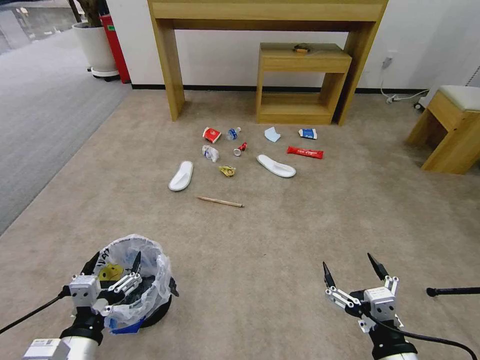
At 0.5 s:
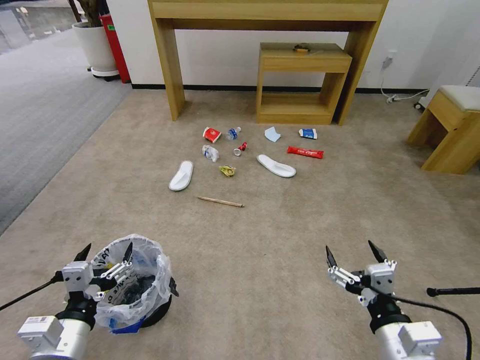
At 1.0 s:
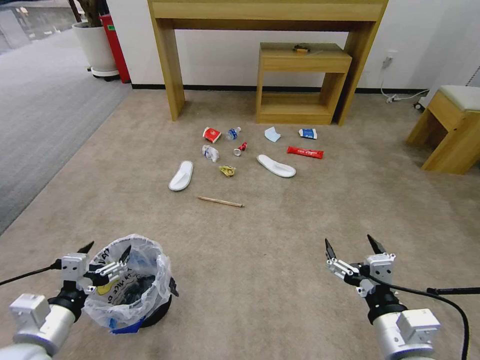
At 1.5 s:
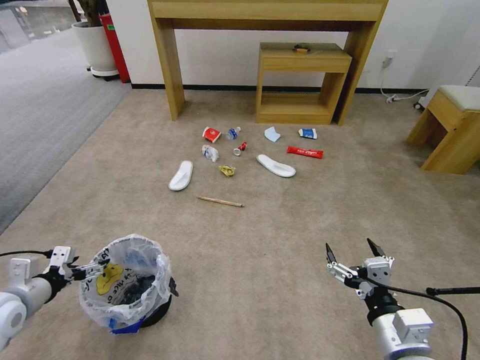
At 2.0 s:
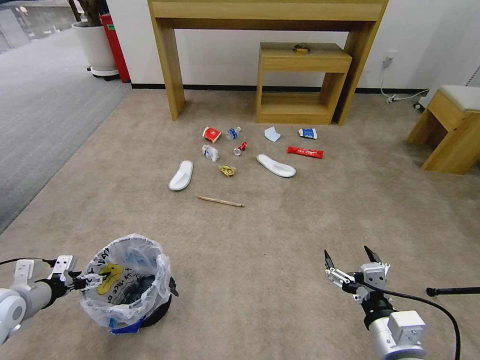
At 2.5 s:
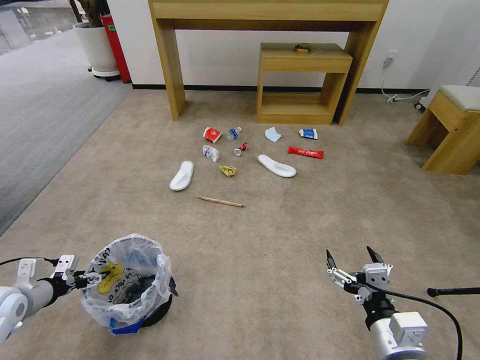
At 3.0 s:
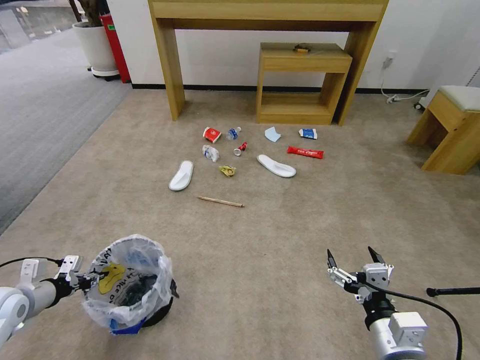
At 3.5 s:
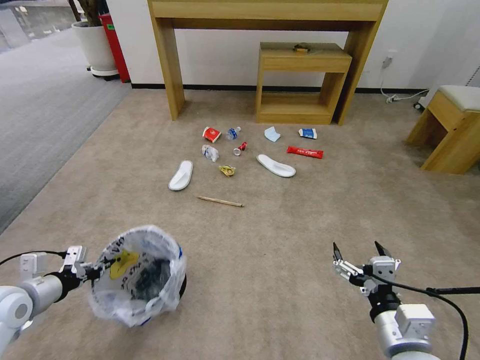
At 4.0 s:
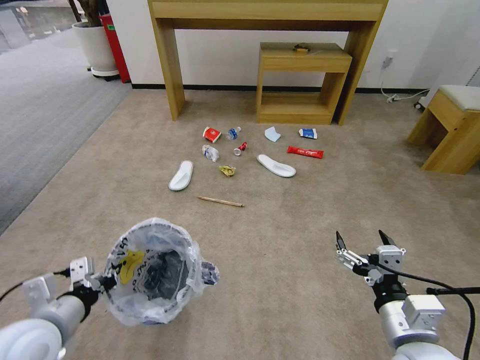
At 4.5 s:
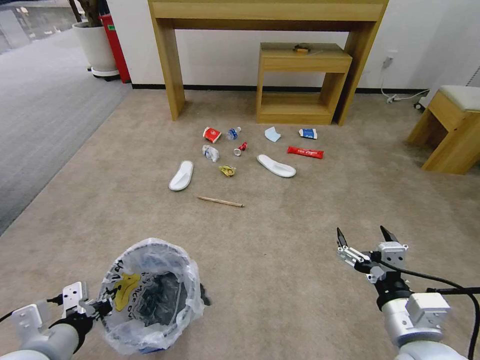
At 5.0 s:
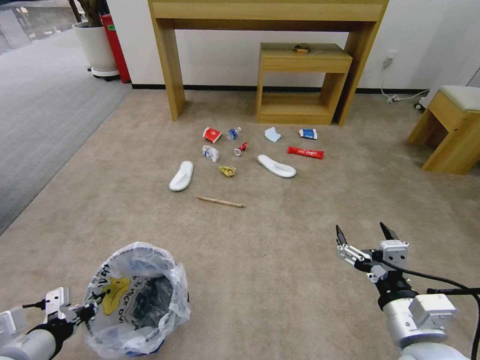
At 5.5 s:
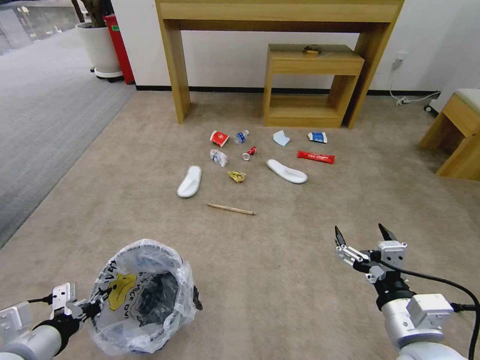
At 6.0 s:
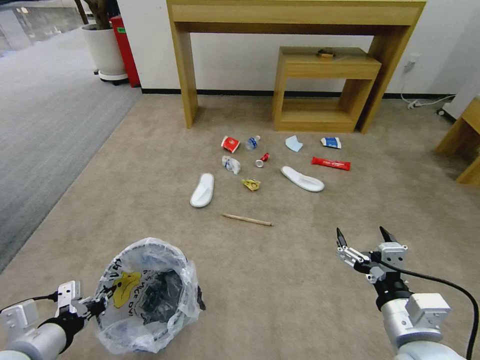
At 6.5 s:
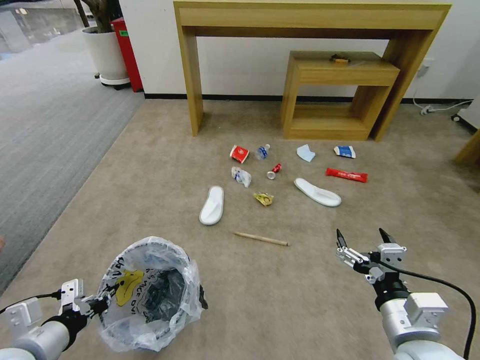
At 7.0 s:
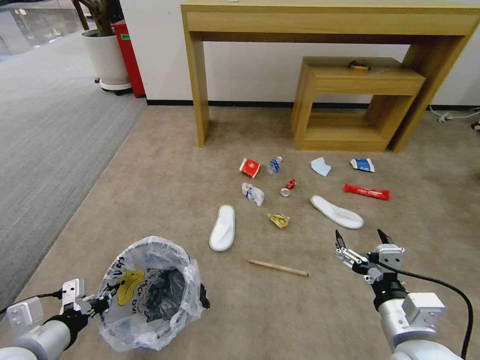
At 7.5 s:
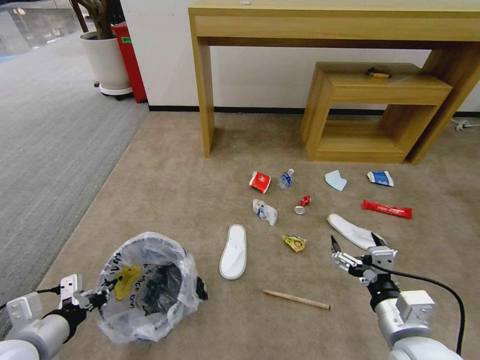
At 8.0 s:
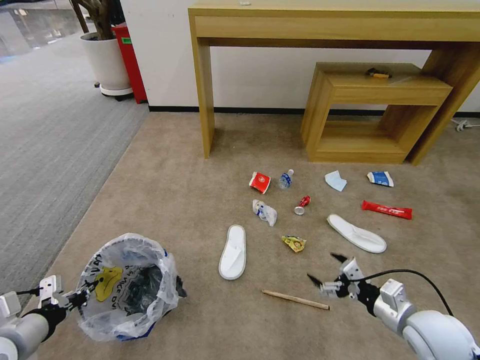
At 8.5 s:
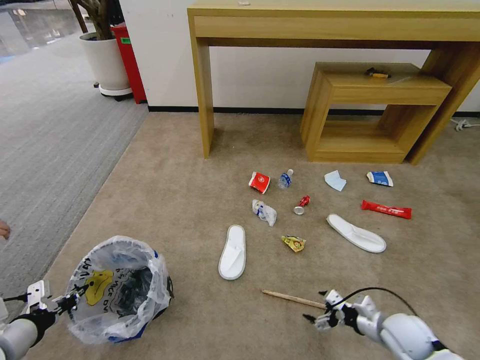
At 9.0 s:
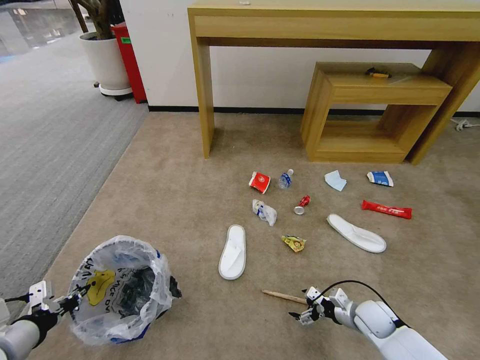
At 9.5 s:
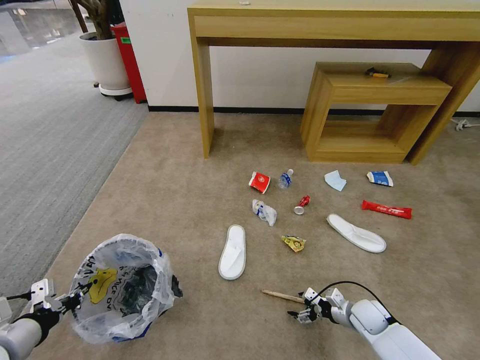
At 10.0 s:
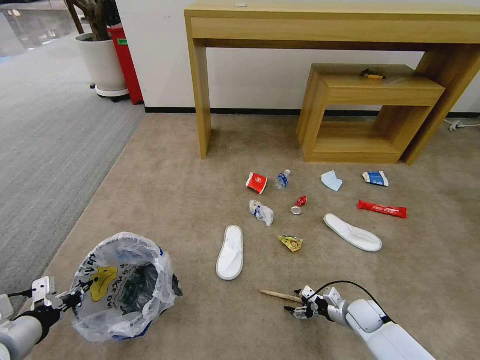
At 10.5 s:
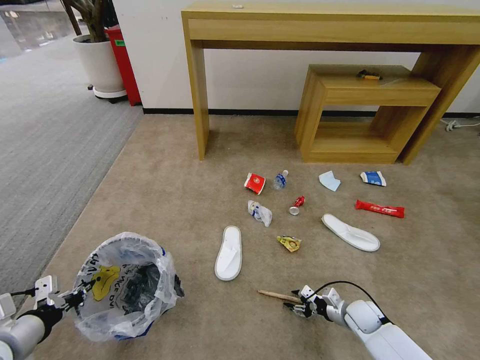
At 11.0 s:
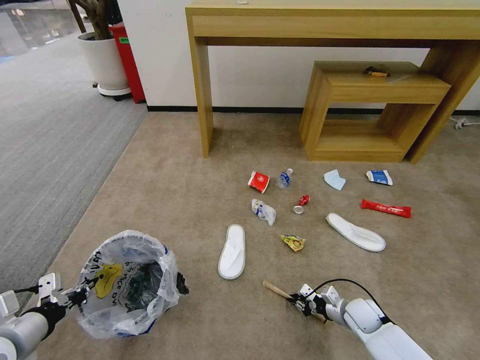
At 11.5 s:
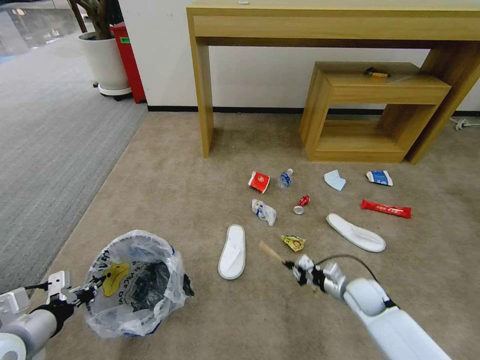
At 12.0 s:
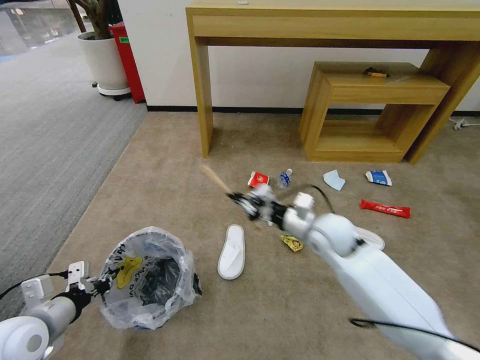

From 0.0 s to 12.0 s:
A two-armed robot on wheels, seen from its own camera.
Task of the whole recording: Pick up the trash bin and place the garbage on the floor into it.
From 2.0 s to 4.0 s: The left gripper heads to the right, backward and upward, covering about 15 cm, and closes up.
From 4.0 s to 6.0 s: The left gripper changes place by some 5 cm.
From 6.0 s to 8.0 s: The right gripper shifts roughly 15 cm to the right, downward and forward, while the left gripper heads to the left, covering roughly 5 cm.
From 8.0 s to 10.0 s: The right gripper shifts about 25 cm downward and forward.
From 10.0 s to 12.0 s: The left gripper changes place by some 5 cm; the right gripper moves upward and to the left, about 30 cm, and closes.

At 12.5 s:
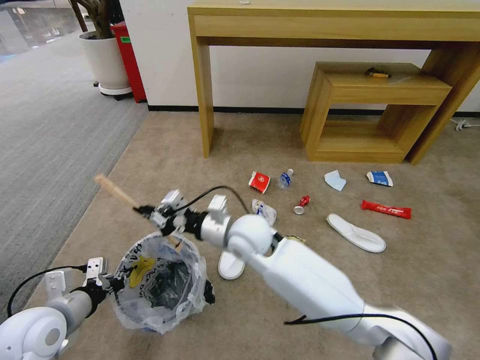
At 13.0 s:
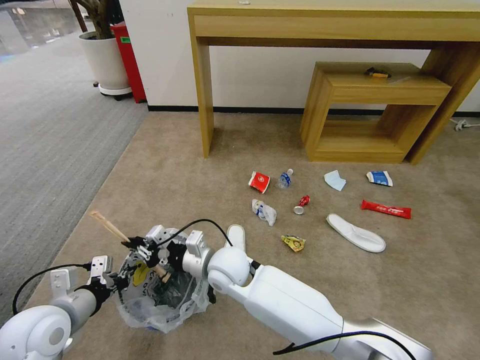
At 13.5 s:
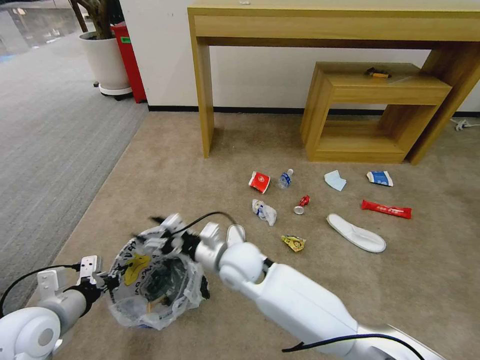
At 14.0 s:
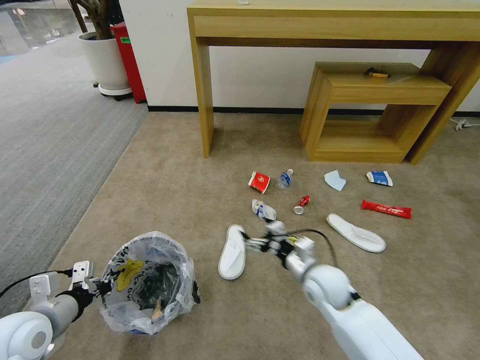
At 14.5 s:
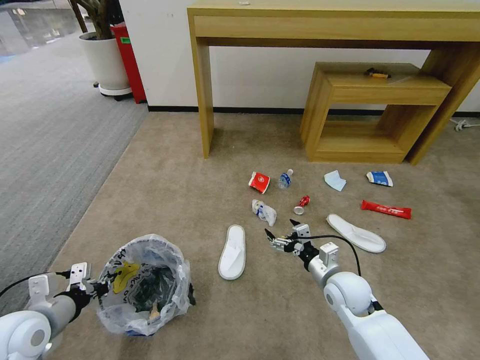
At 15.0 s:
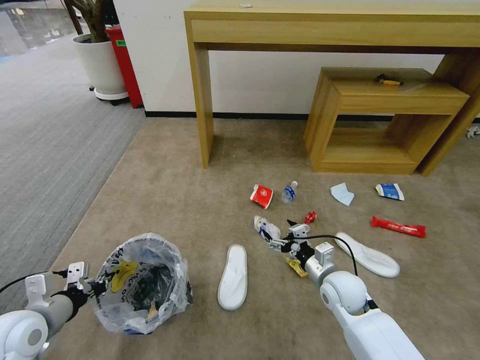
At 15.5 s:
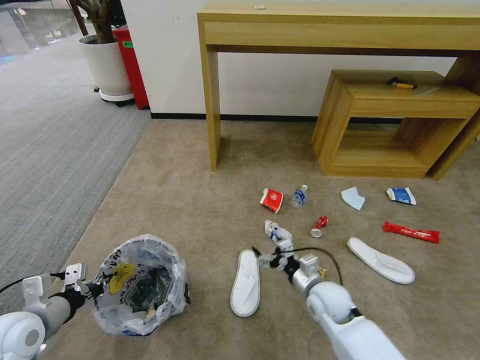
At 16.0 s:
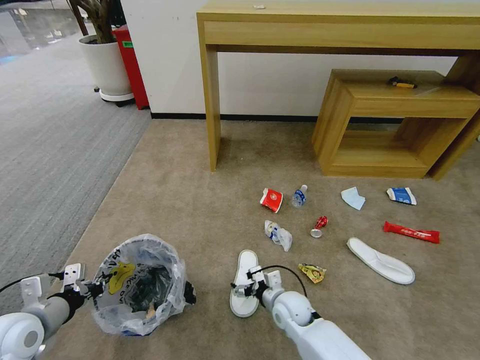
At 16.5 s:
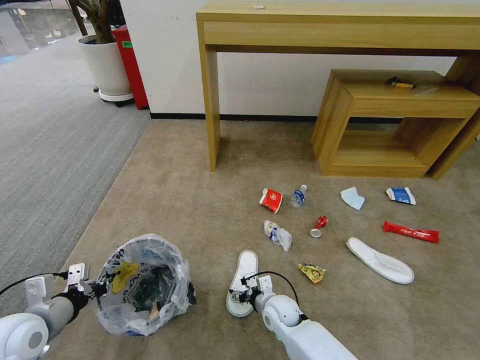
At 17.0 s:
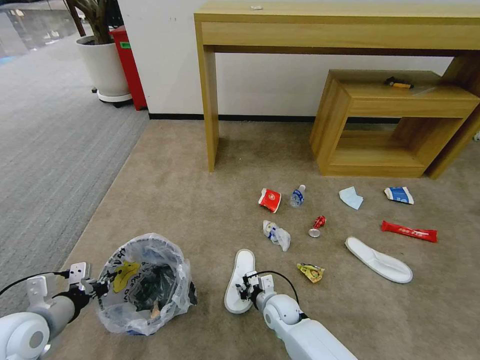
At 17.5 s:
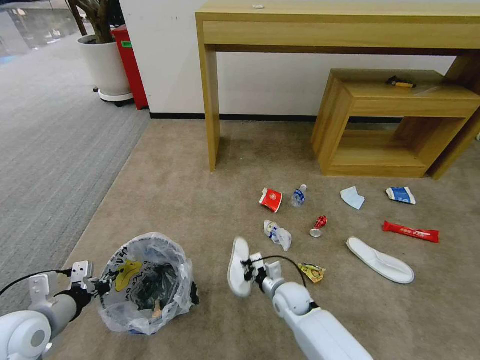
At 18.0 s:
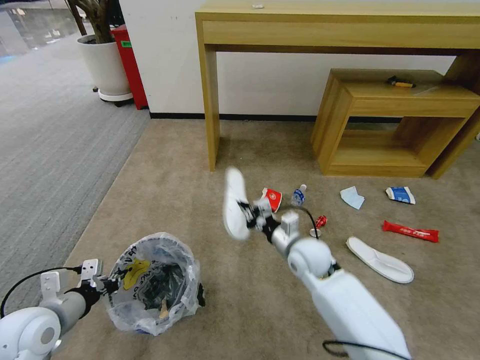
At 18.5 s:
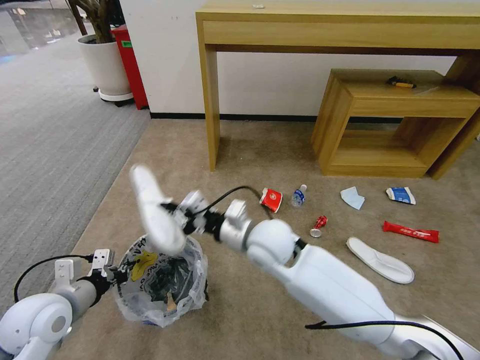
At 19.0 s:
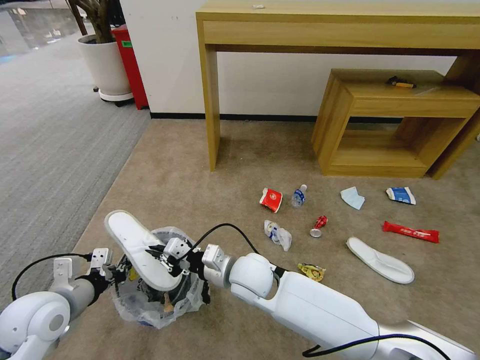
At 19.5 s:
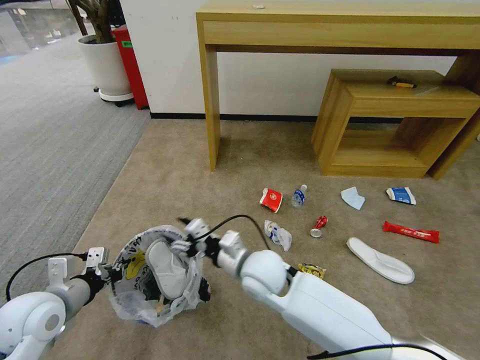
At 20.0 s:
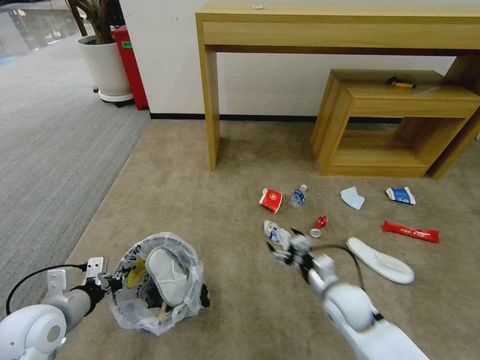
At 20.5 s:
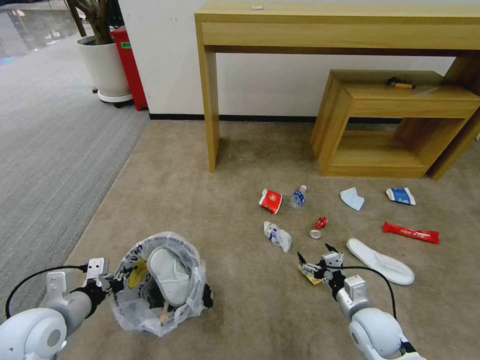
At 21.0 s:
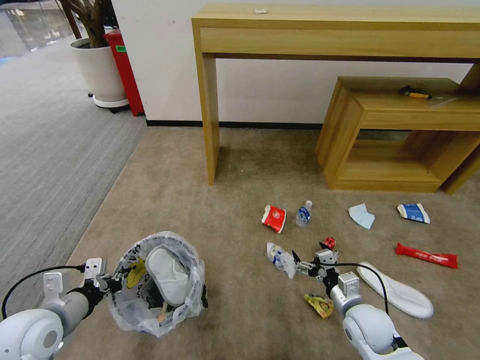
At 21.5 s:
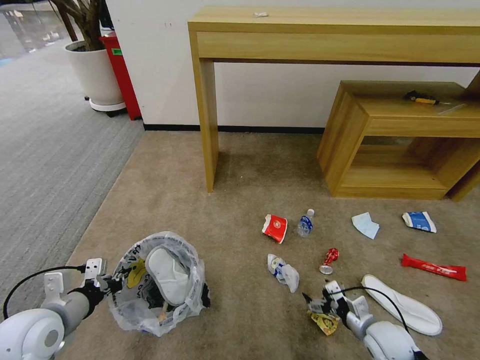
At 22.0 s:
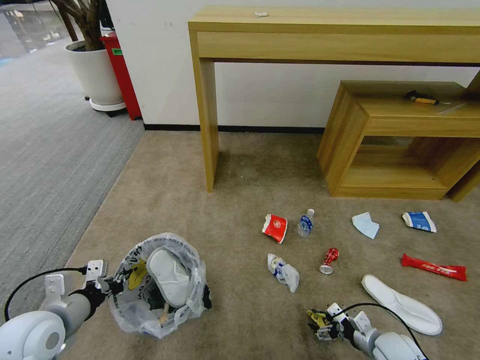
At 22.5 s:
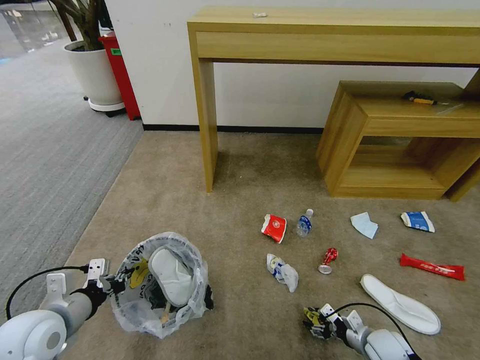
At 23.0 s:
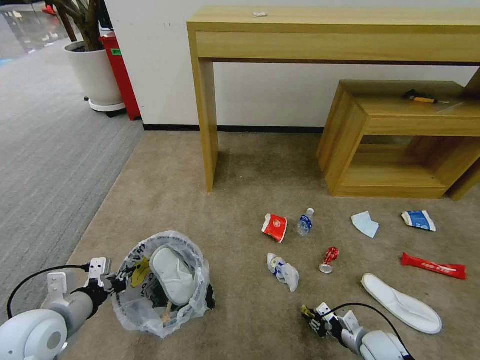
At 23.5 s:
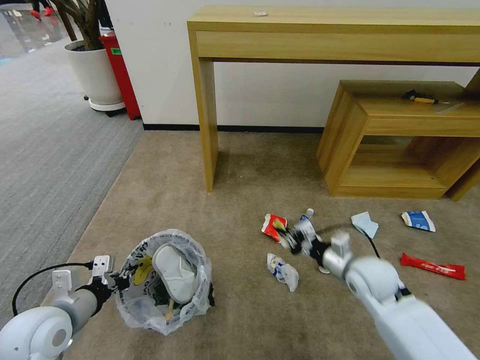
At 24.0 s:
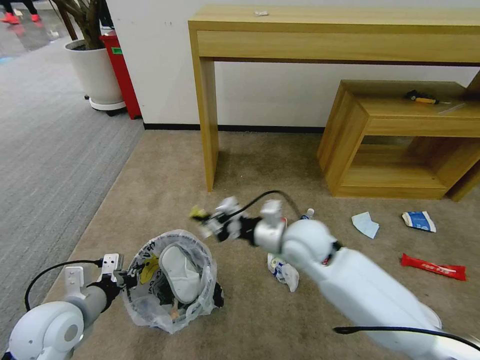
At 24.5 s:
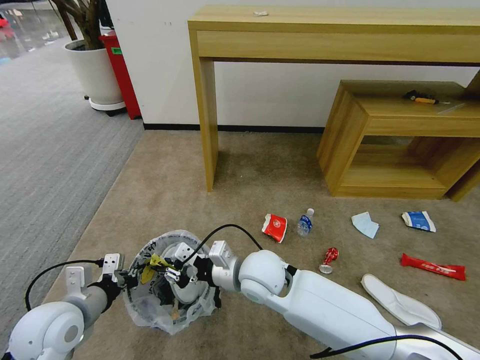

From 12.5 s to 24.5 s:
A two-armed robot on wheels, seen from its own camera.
Task of the whole recording: Pick up the trash bin and place the garbage on the floor into it.
From 12.5 s to 14.5 s: The right gripper is displaced to the right and downward by some 25 cm, and opens its fingers.
From 14.5 s to 16.5 s: The right gripper is displaced to the left and downward by approximately 20 cm.
From 16.5 s to 18.5 s: The right gripper goes about 25 cm upward, and closes; the left gripper moves approximately 5 cm.
From 18.5 s to 20.5 s: The right gripper goes about 30 cm to the right, downward and backward, and opens its fingers.
From 20.5 s to 22.5 s: The right gripper heads downward and to the right, covering about 15 cm.
From 22.5 s to 24.5 s: The right gripper travels to the left and upward by approximately 40 cm, and closes up.

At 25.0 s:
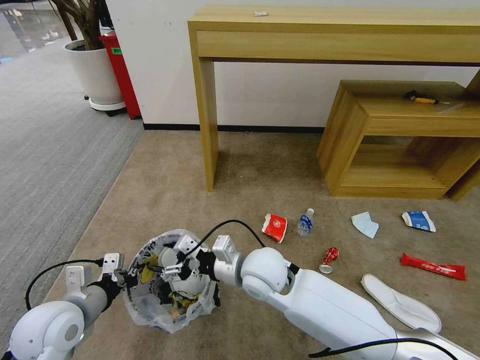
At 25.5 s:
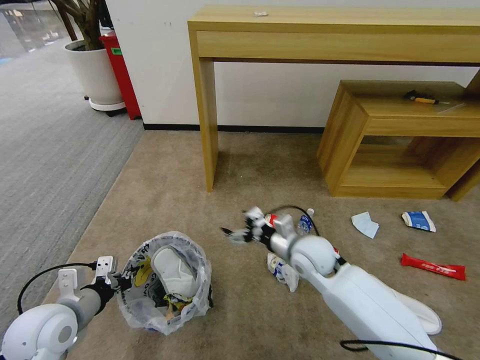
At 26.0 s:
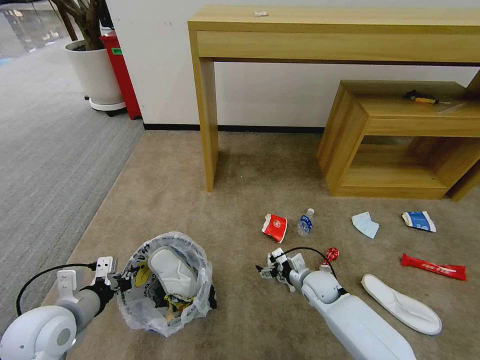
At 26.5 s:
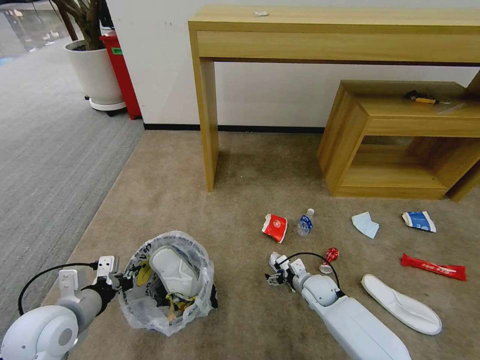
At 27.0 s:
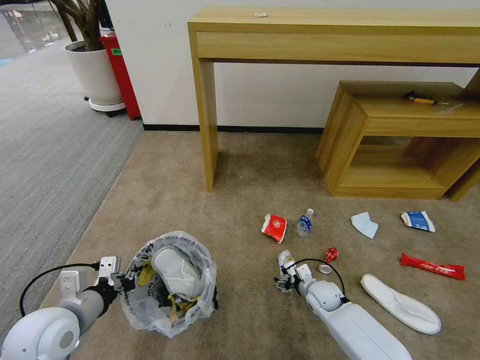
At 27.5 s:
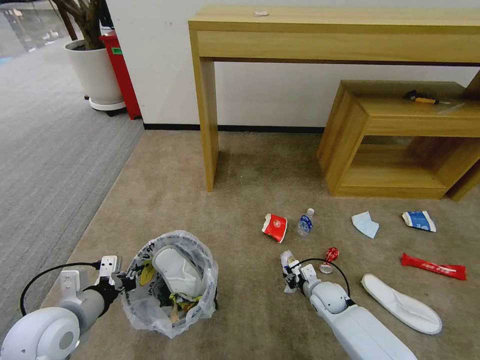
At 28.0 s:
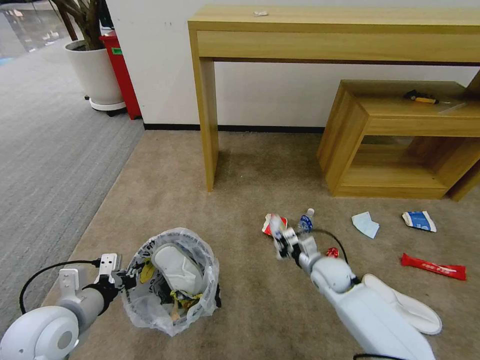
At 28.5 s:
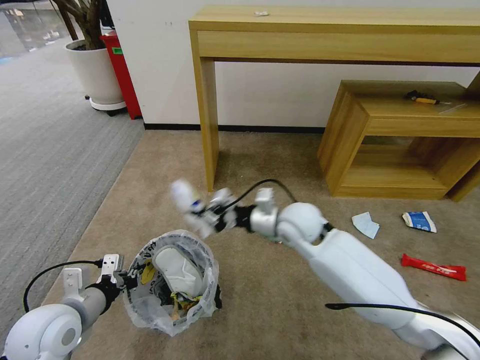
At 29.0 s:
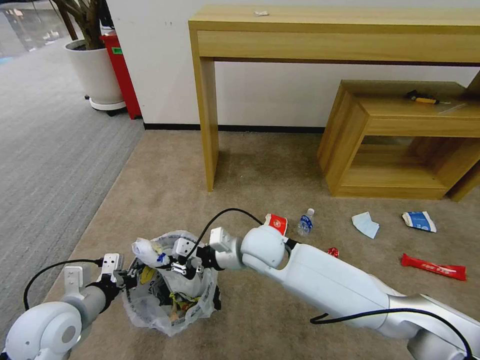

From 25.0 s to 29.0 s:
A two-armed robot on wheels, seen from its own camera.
Task of the whole recording: Pick up the trash bin and place the garbage on the floor into it.
From 25.0 s to 27.0 s: The right gripper moves downward and to the right, roughly 30 cm.
From 27.0 s to 29.0 s: The right gripper is displaced upward and to the left by about 30 cm, and closes up.
